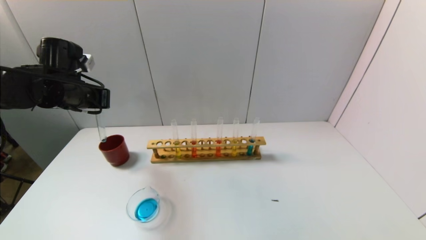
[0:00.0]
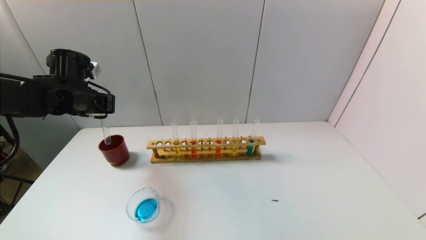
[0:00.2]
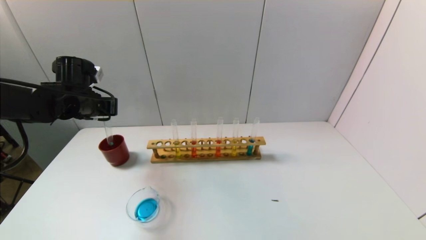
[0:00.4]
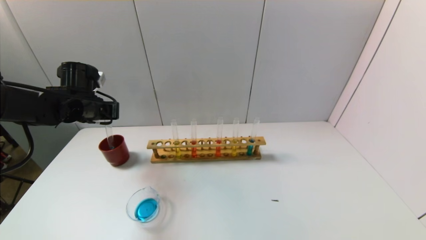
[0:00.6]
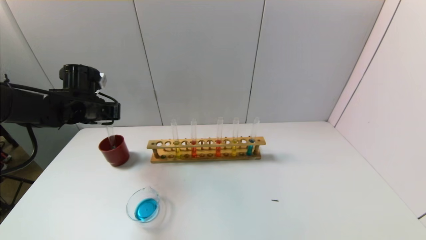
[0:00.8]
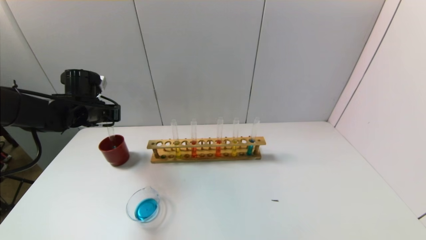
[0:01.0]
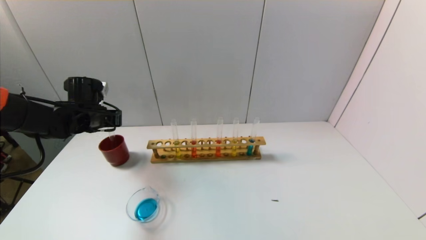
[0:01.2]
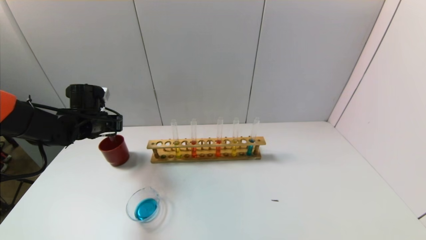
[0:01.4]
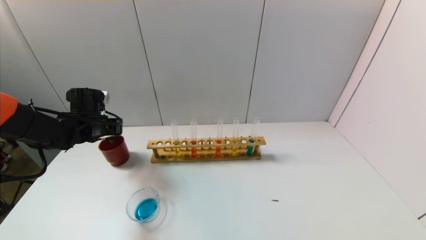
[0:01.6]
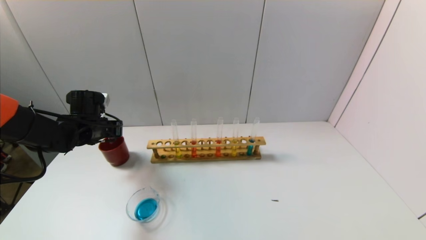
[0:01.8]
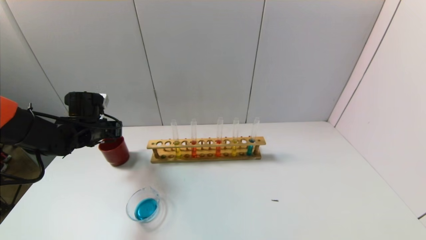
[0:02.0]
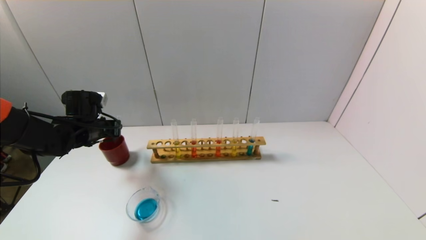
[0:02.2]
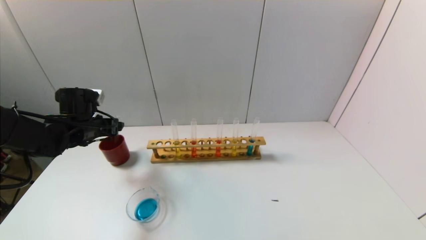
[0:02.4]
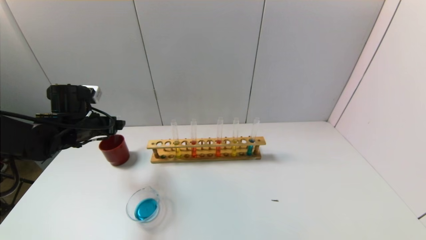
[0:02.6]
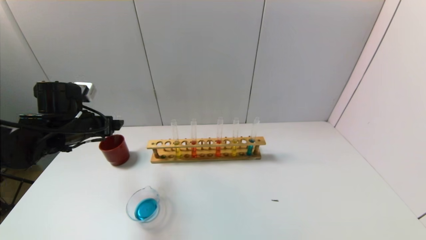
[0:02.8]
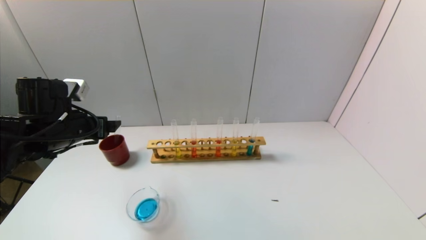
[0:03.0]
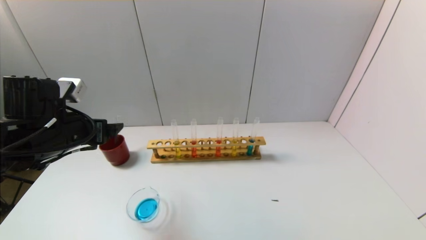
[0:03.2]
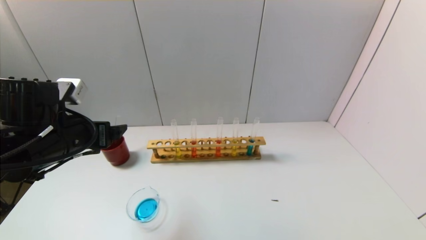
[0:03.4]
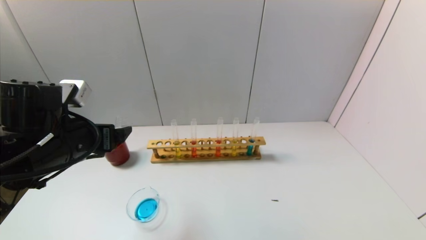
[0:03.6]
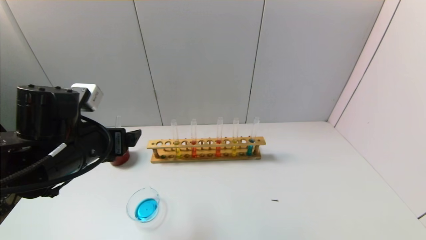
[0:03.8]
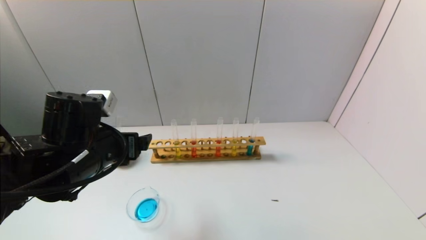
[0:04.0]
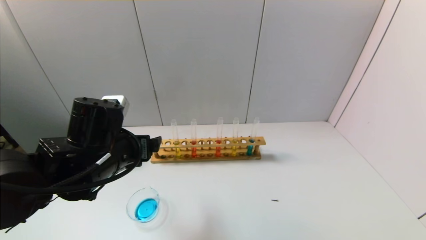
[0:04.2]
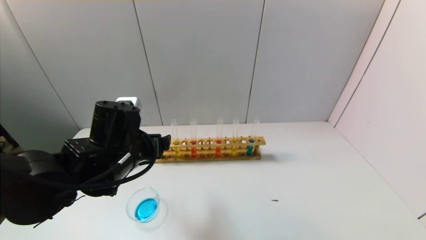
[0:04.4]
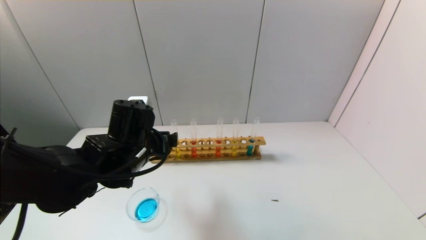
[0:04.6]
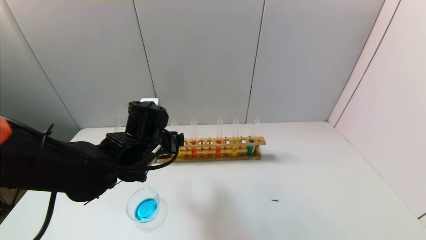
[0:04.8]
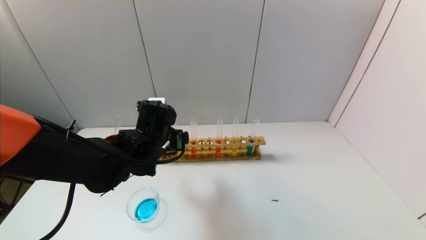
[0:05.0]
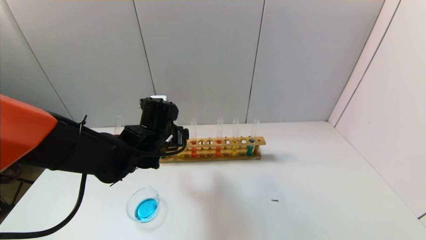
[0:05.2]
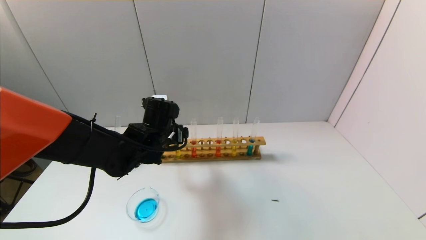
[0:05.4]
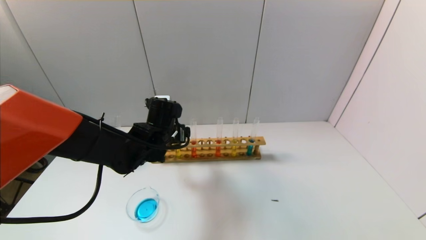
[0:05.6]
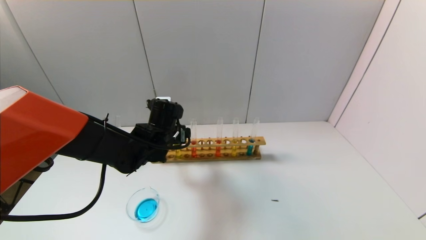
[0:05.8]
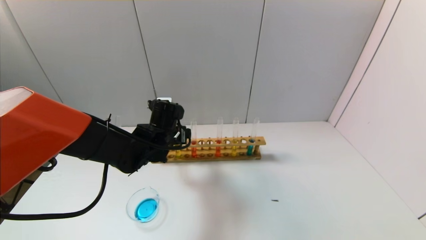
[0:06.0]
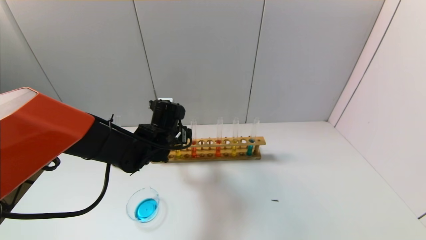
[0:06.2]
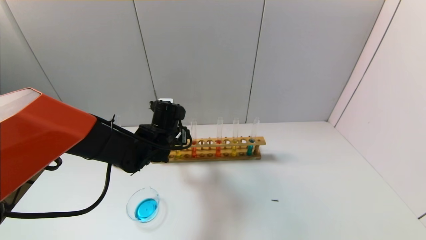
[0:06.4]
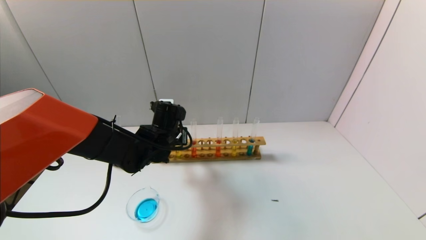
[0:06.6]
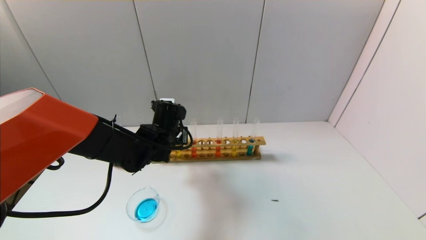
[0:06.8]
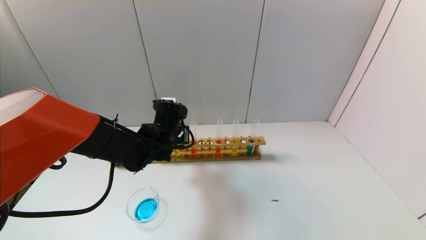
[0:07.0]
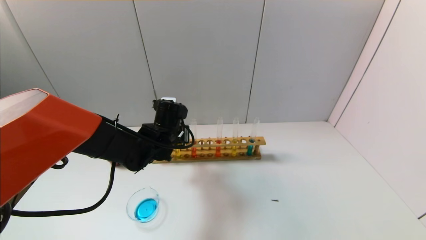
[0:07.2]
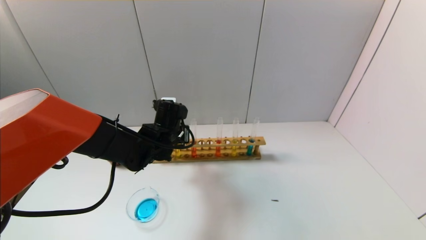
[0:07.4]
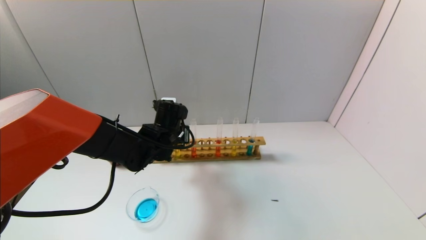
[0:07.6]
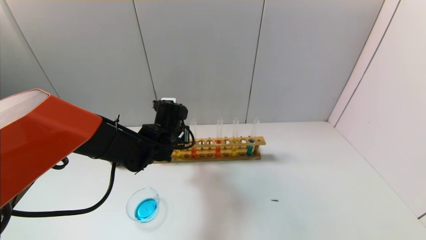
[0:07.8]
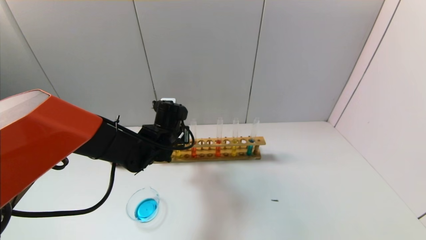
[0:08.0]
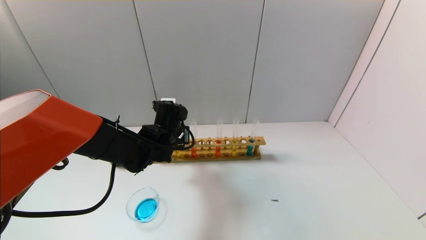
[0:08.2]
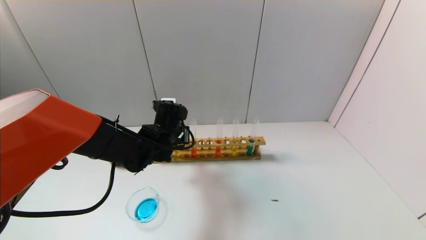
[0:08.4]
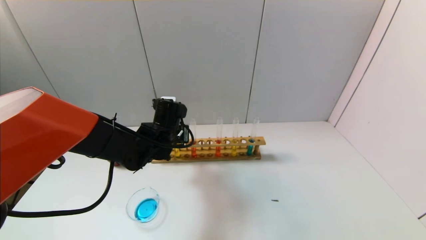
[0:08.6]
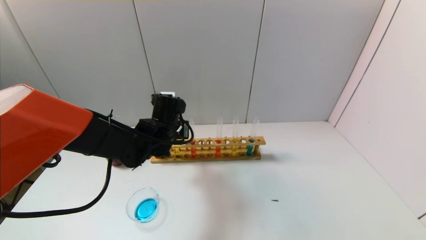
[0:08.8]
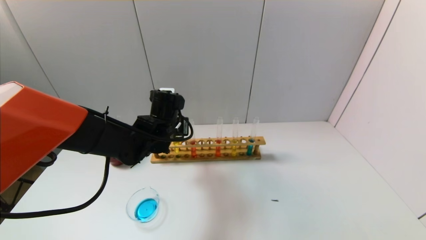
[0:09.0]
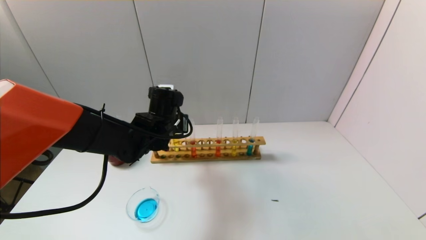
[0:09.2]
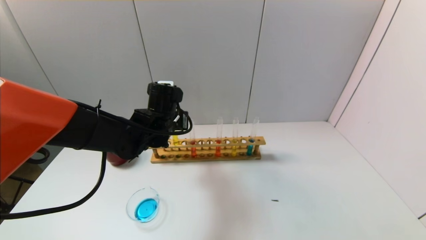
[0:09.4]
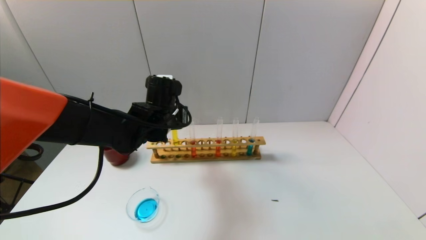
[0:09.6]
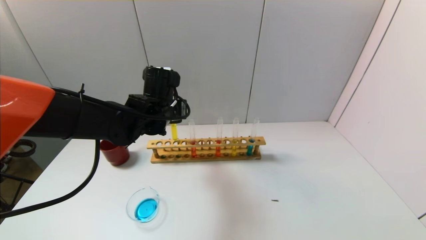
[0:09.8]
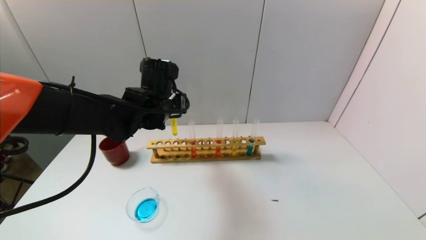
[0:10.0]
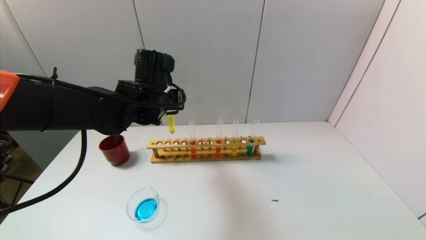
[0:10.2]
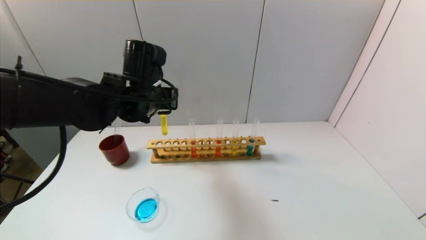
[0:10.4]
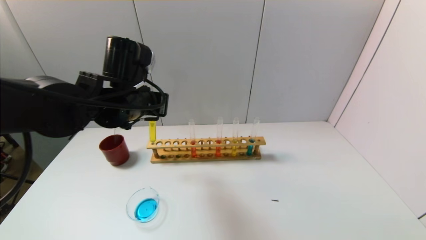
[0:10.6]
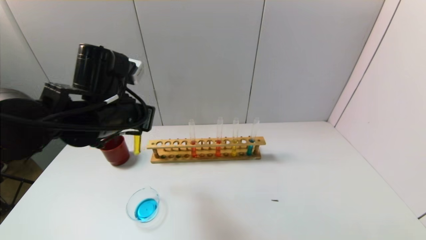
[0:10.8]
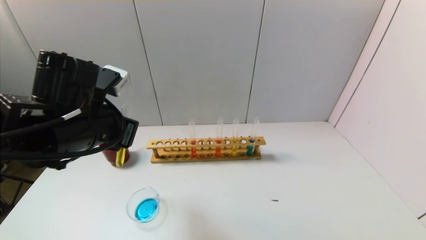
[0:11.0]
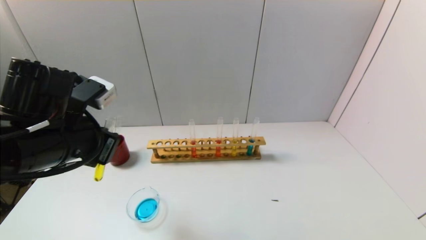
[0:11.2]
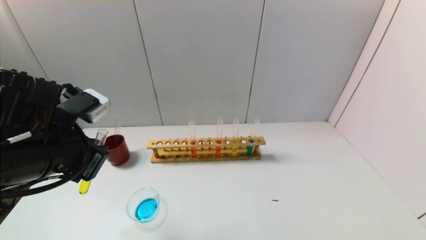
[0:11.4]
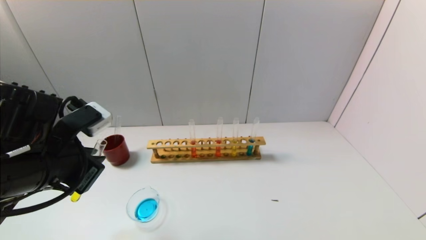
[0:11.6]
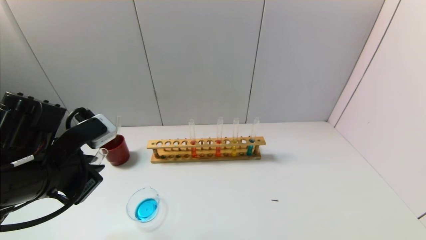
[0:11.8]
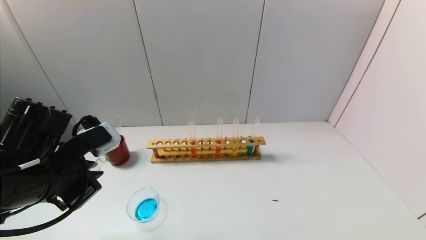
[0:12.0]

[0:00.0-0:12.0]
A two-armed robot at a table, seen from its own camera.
Task of the whole recording: pick up the test tube with yellow pigment and the test tube with blue pigment by grippers and pour them into the beaker.
Step, 0:00.0 to 0:02.2: Place the test tube into the brown cup with the left gripper.
Step, 0:02.4 to 0:07.0: Grasp the yellow reagent with the left gripper.
0:00.0 to 0:01.6: The left gripper heads downward, covering approximately 10 cm.
0:01.6 to 0:03.0: The left gripper goes about 10 cm backward and upward, and opens up.
0:03.0 to 0:04.4: The left gripper shifts approximately 10 cm to the right.
0:04.4 to 0:06.0: The left gripper travels forward by approximately 10 cm.
0:06.0 to 0:07.6: The left gripper closes up.
0:07.6 to 0:09.0: The grippers stay close to where they were, moving slightly.
0:09.0 to 0:10.4: The left gripper goes some 10 cm upward.
0:10.4 to 0:12.0: The left gripper travels backward and to the left by about 20 cm.

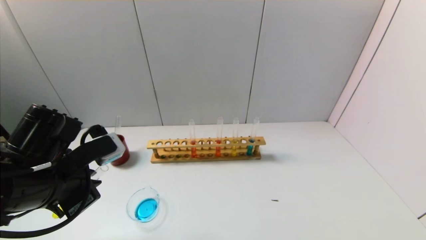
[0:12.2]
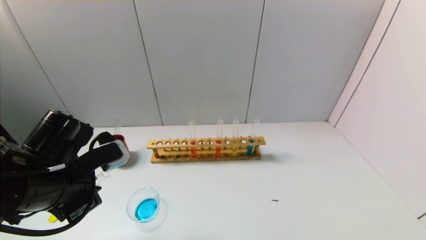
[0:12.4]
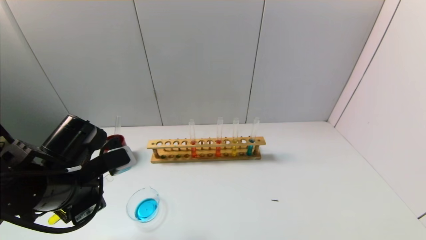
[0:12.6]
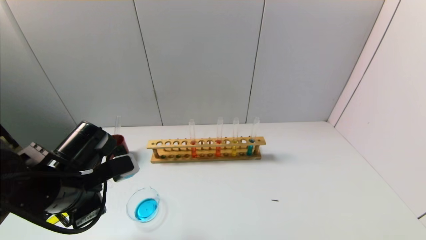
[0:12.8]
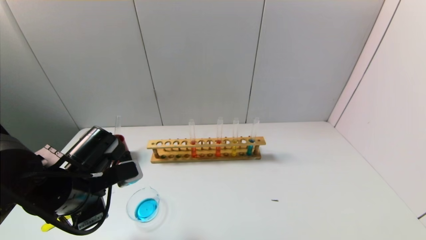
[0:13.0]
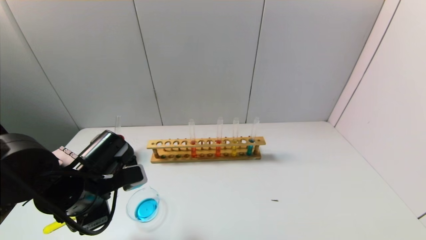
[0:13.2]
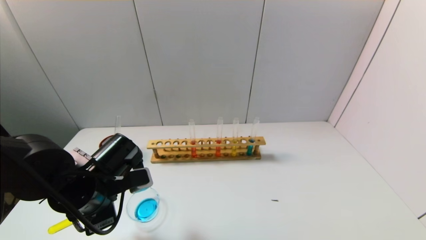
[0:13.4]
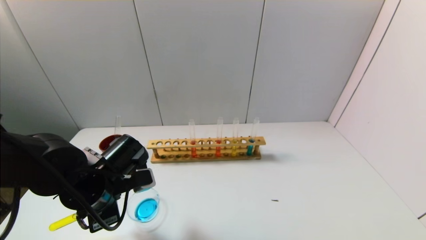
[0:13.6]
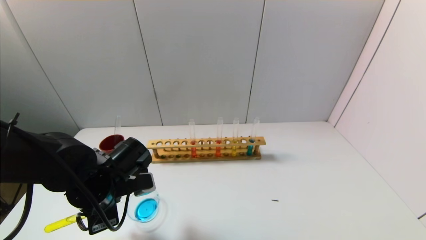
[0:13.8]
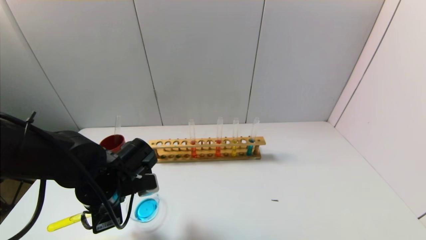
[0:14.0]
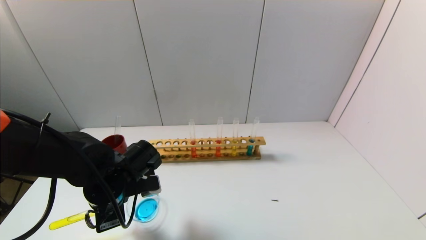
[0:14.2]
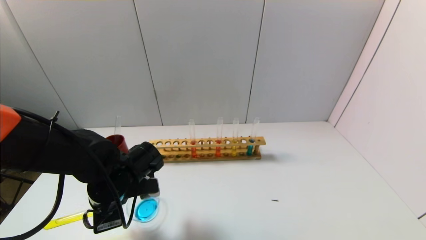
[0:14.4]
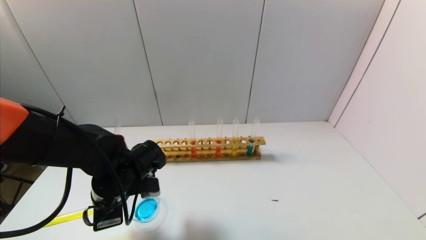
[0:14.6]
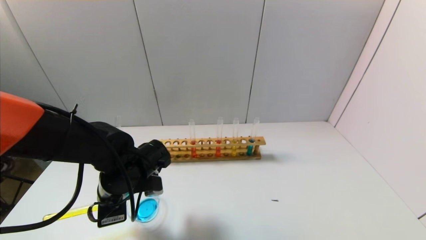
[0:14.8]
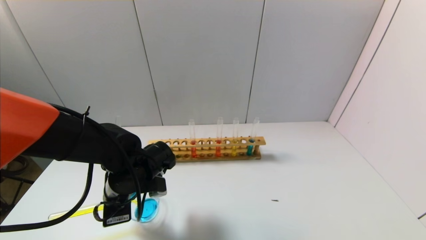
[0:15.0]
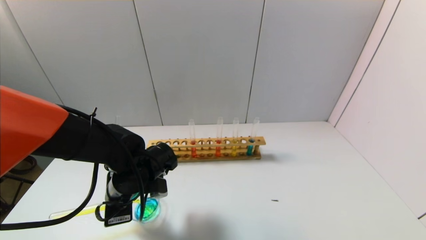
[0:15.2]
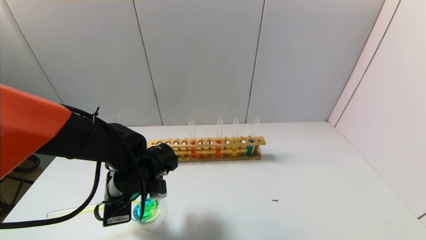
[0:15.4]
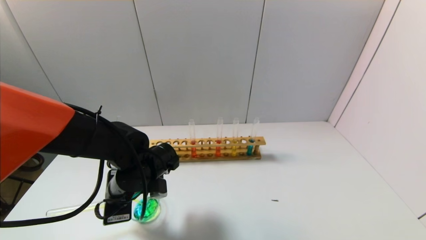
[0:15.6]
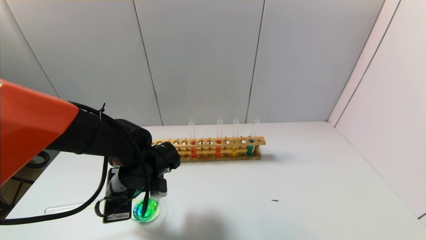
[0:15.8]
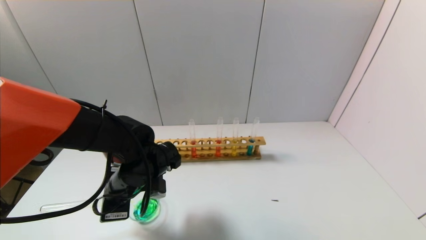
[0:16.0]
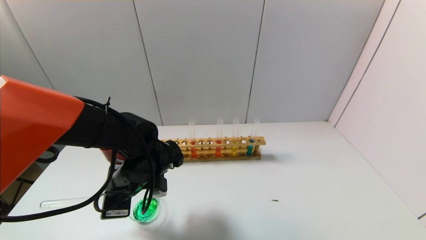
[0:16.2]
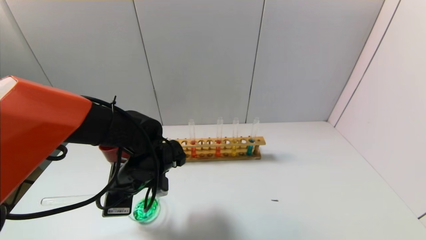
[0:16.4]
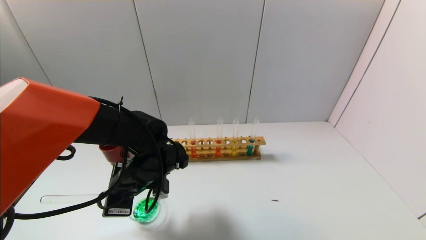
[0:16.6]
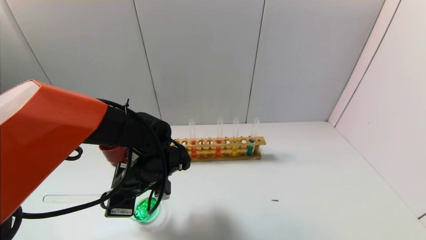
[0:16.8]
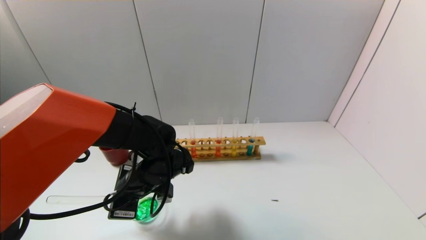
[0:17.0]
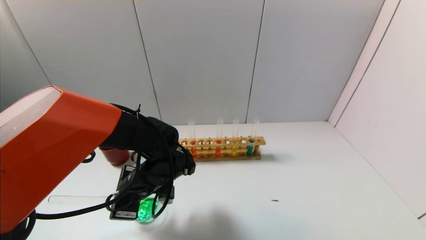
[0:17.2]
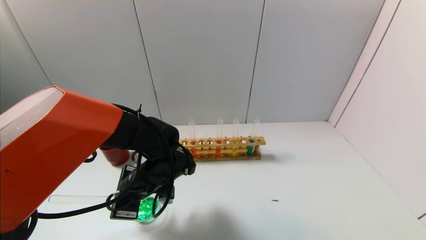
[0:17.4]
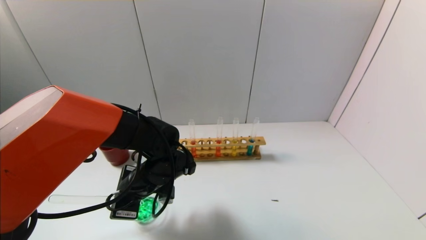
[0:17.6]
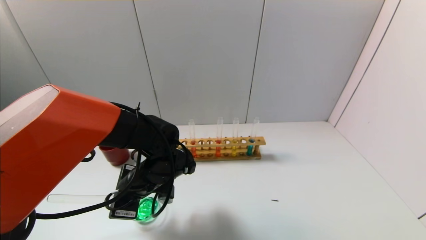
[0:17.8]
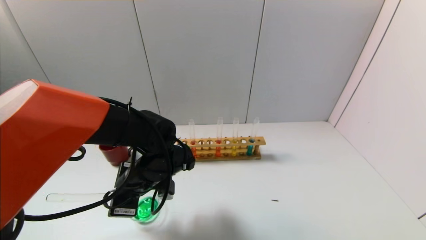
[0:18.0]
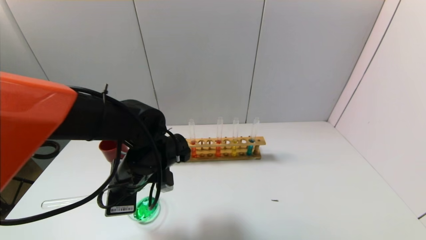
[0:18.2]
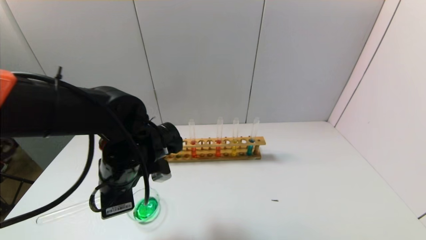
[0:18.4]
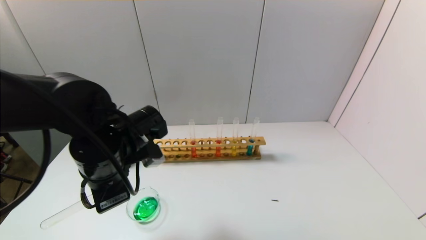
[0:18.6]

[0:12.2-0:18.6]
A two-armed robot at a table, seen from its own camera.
Task of the whole recording: pick up the test tube with yellow pigment and the test tube with blue pigment by grippers and pour them into the beaker.
Step, 0:12.2 to 0:18.2: Pour the yellow reagent into the graduated cylinder with the left gripper.
0:12.2 to 0:13.8: The left gripper goes some 5 cm downward.
0:13.8 to 0:15.4: The grippers make only small movements.
0:15.4 to 0:17.0: The grippers stay close to where they were, moving slightly.
0:17.0 to 0:18.6: The left gripper shifts roughly 10 cm upward.
